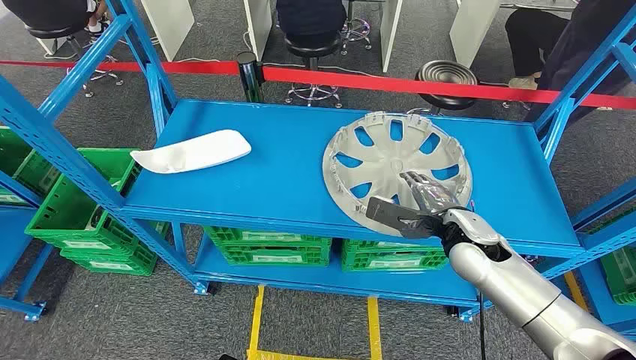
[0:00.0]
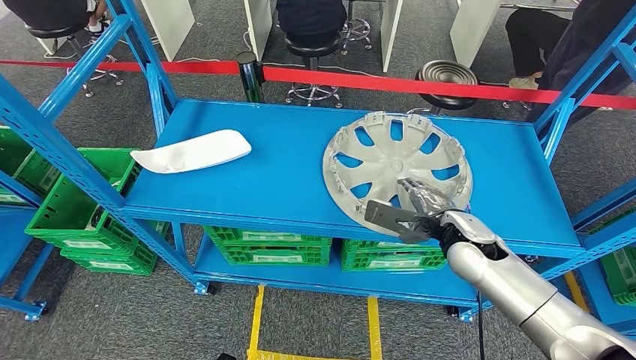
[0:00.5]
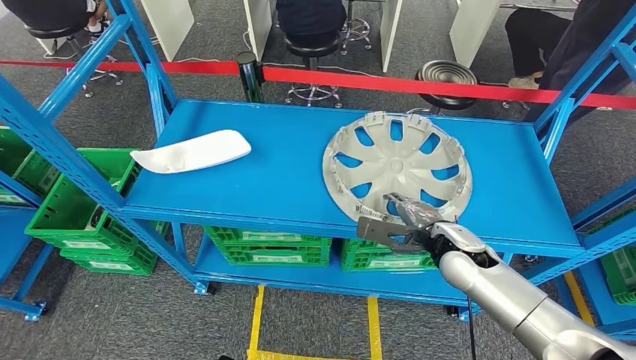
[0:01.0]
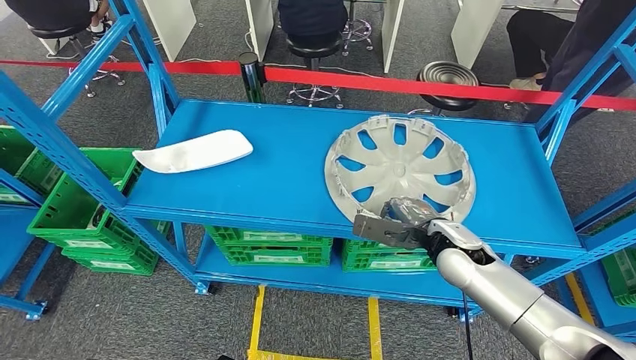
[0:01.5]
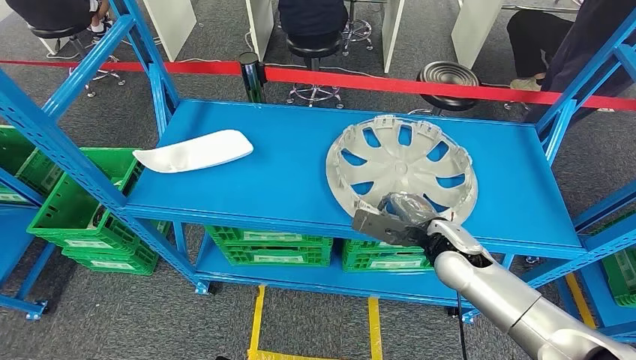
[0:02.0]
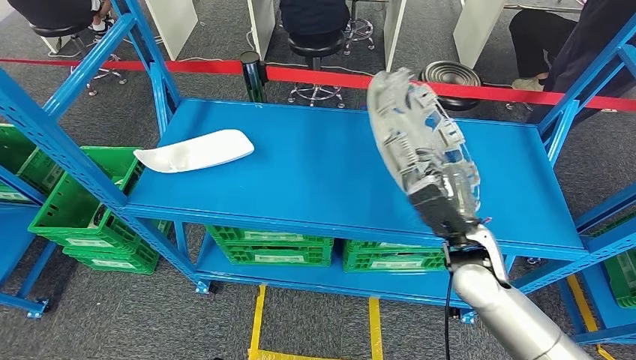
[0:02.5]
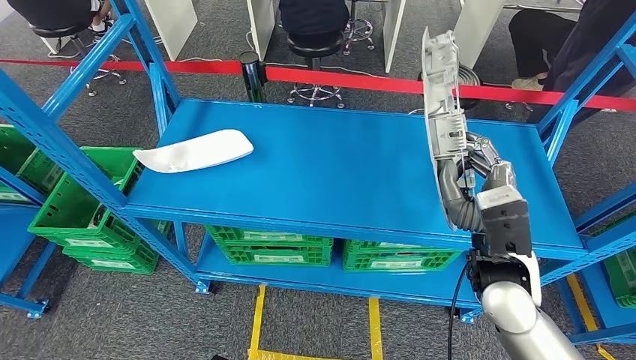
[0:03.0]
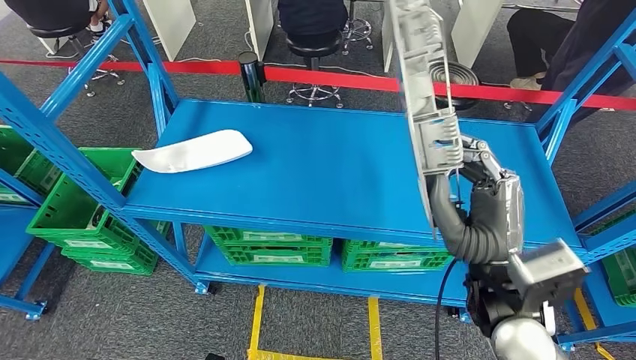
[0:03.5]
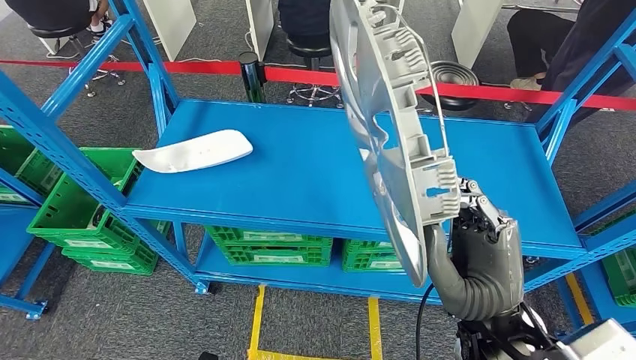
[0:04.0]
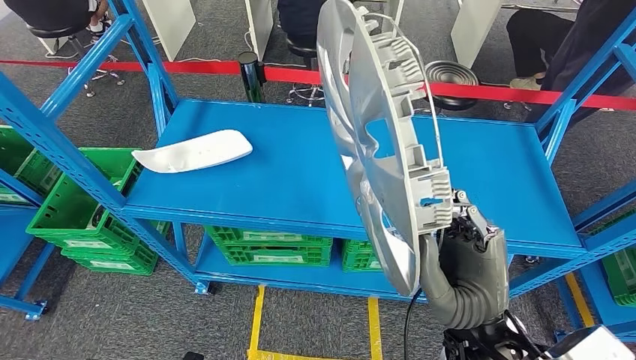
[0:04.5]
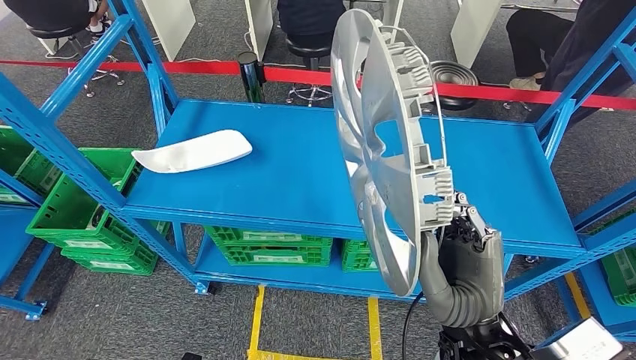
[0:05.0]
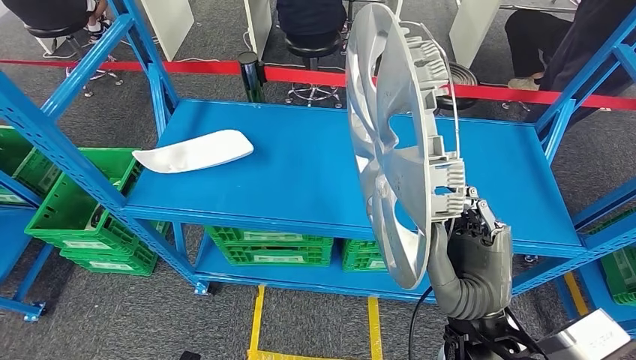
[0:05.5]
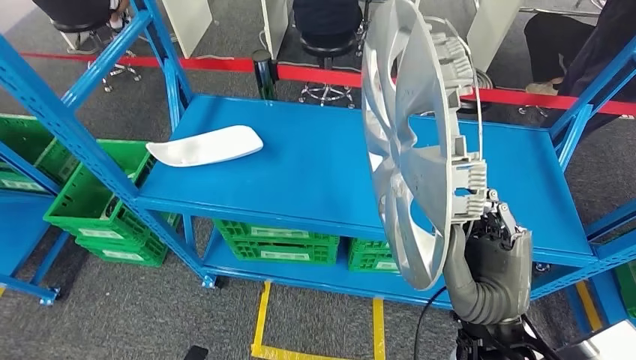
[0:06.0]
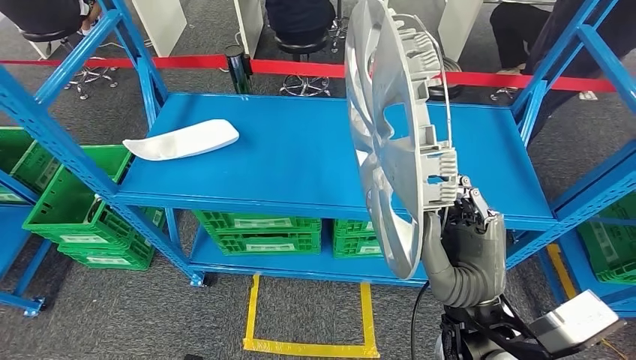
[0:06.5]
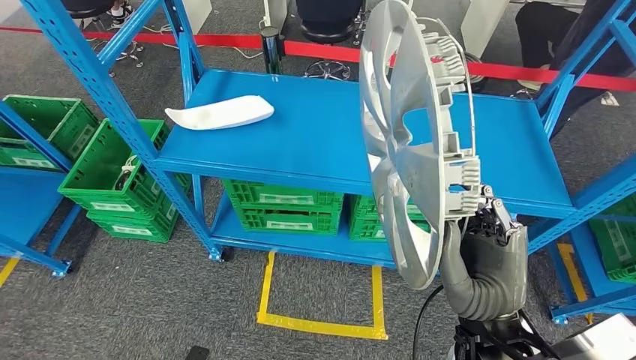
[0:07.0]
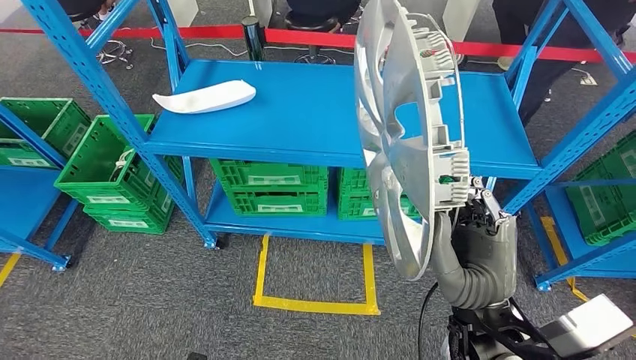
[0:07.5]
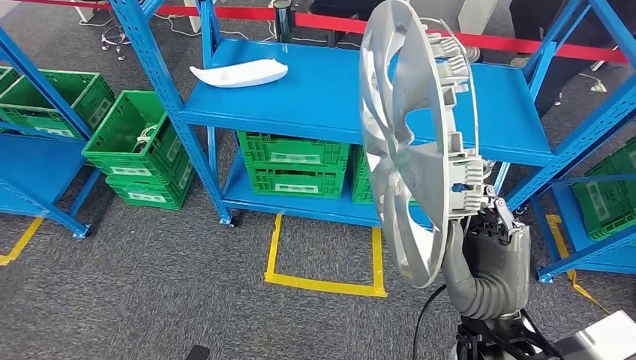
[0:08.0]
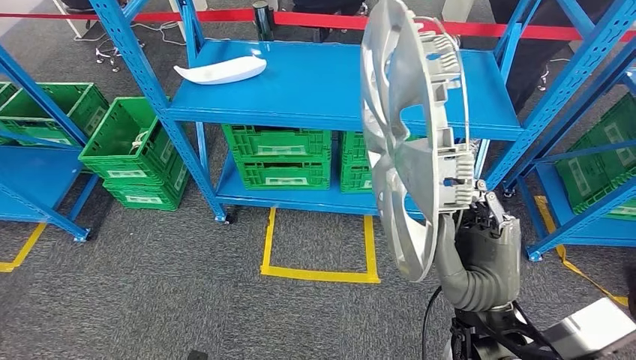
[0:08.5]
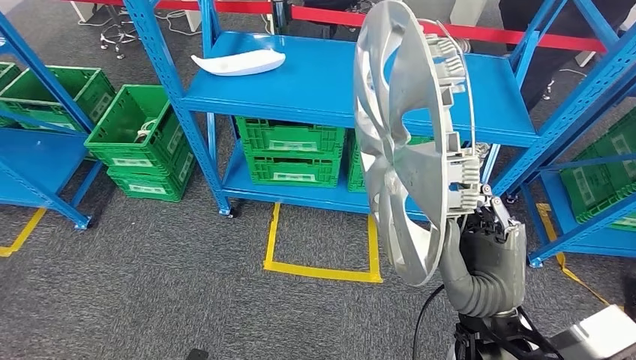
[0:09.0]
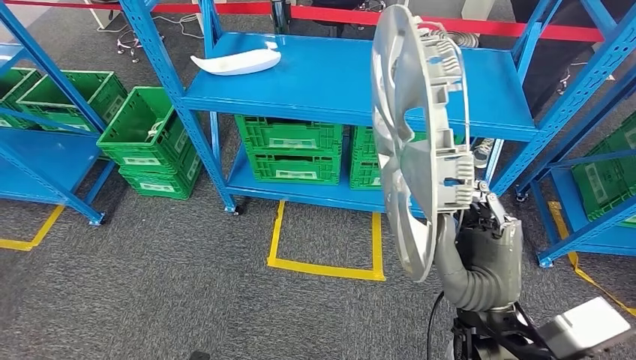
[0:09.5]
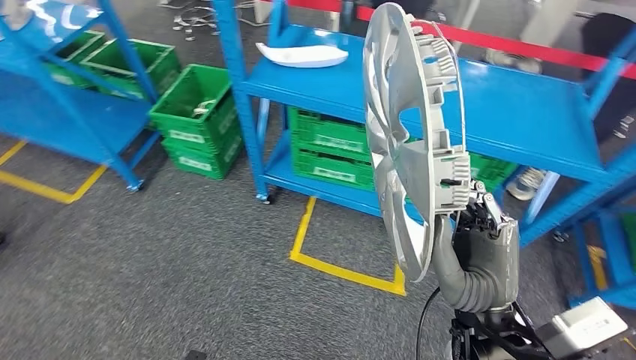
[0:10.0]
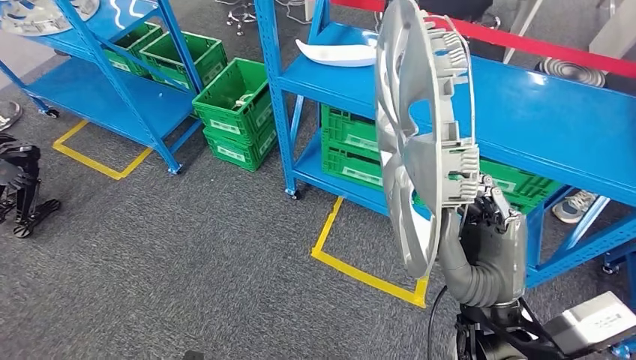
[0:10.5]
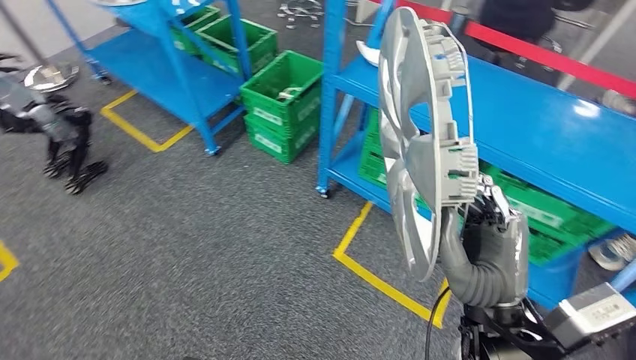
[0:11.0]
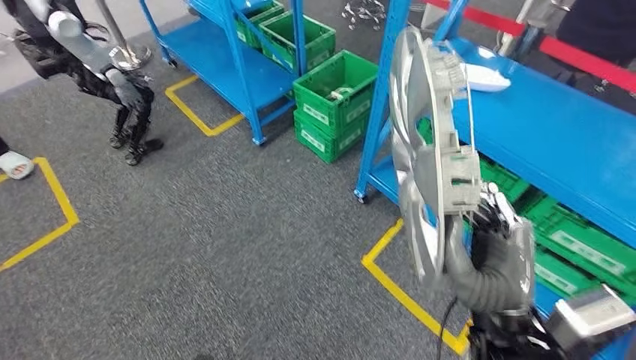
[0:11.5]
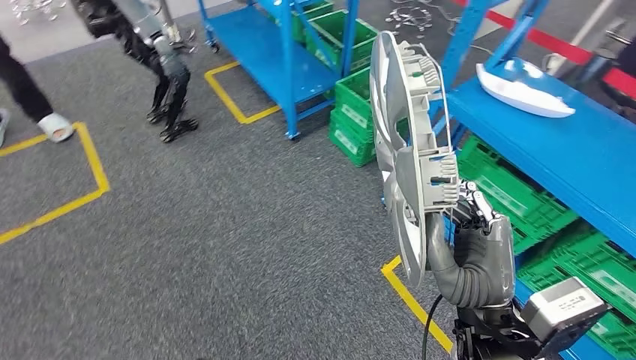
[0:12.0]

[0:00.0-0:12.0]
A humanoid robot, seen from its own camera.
Step, 0:00.0 to 0:05.0: Pick up the small component from the shelf.
0:02.0 to 0:04.0: The right hand shifts some 20 cm backward and upward.

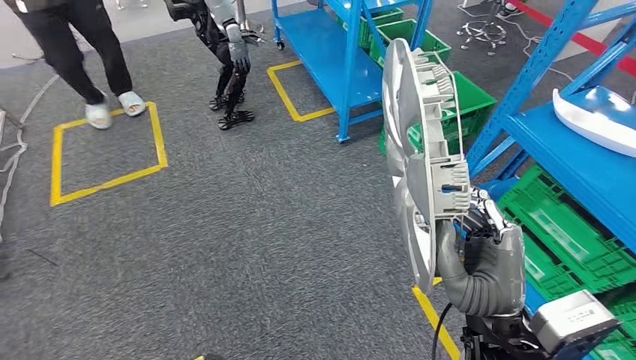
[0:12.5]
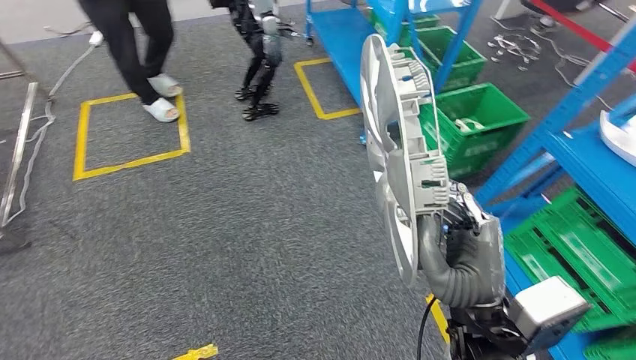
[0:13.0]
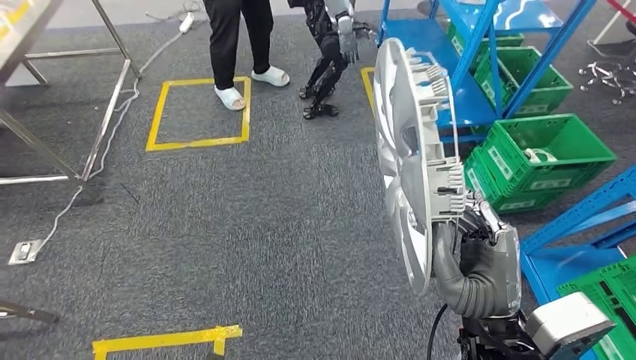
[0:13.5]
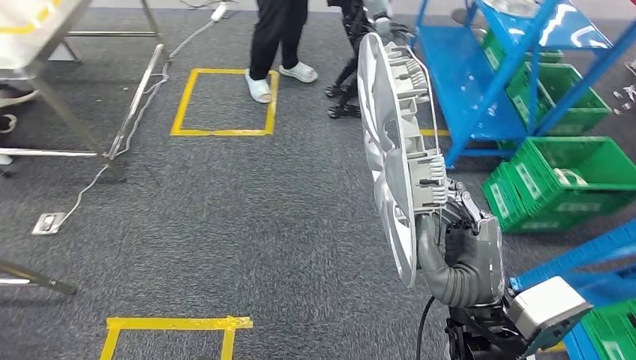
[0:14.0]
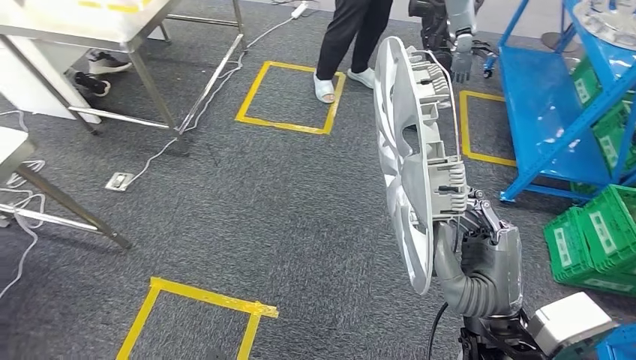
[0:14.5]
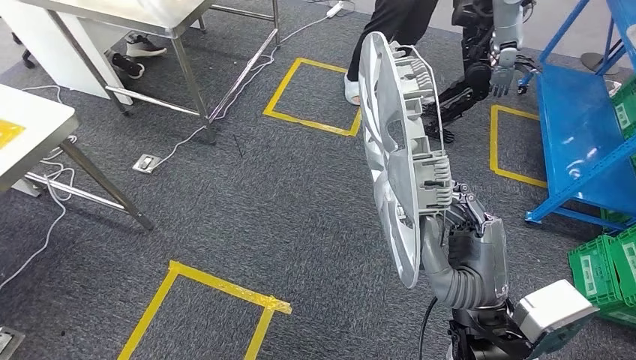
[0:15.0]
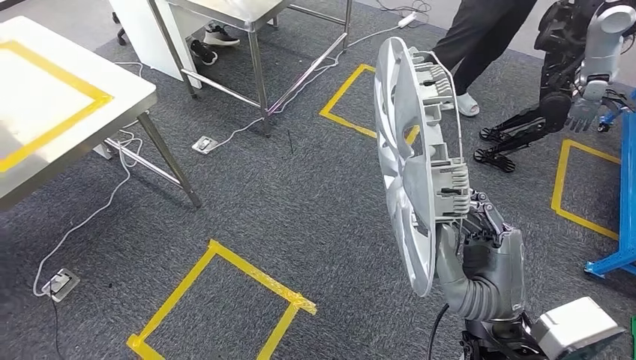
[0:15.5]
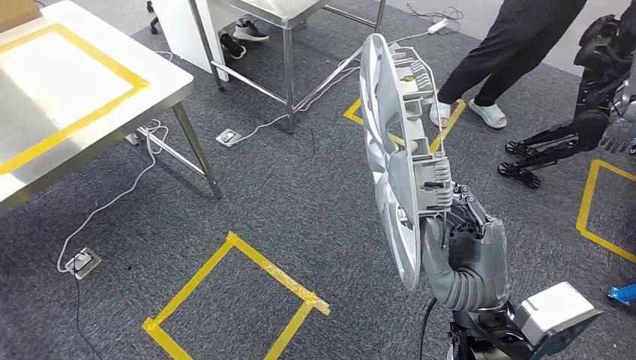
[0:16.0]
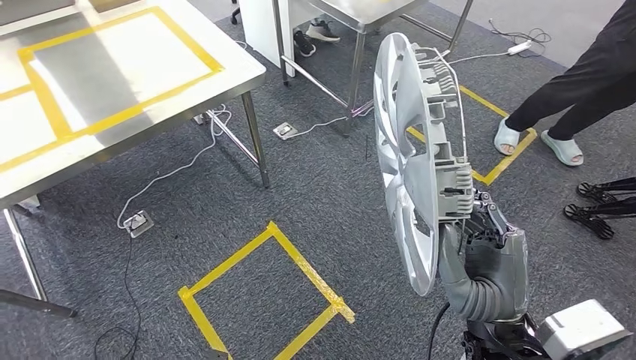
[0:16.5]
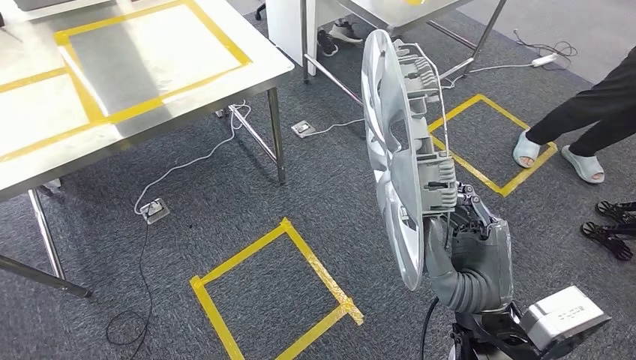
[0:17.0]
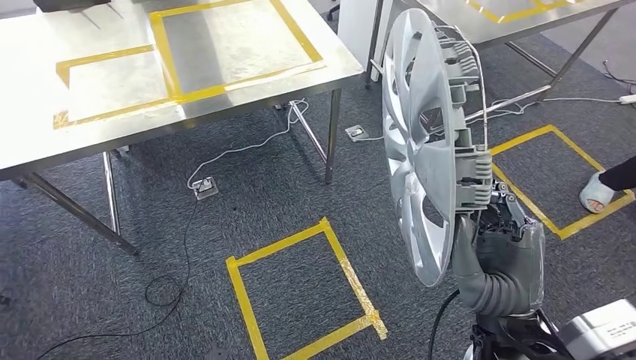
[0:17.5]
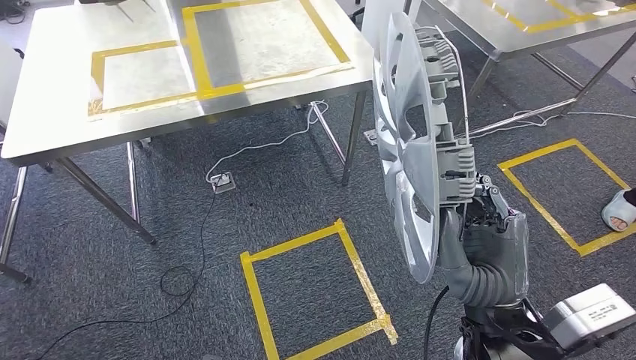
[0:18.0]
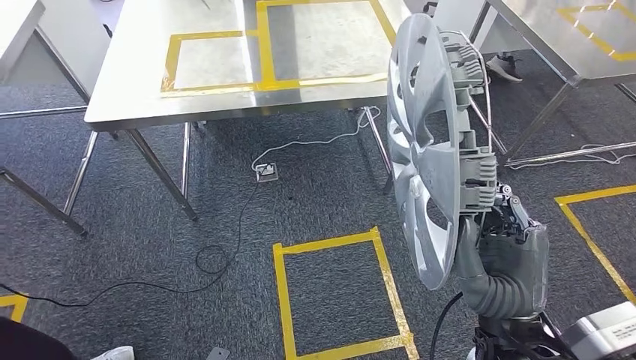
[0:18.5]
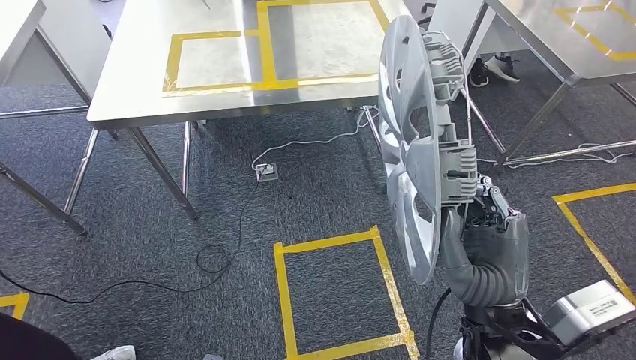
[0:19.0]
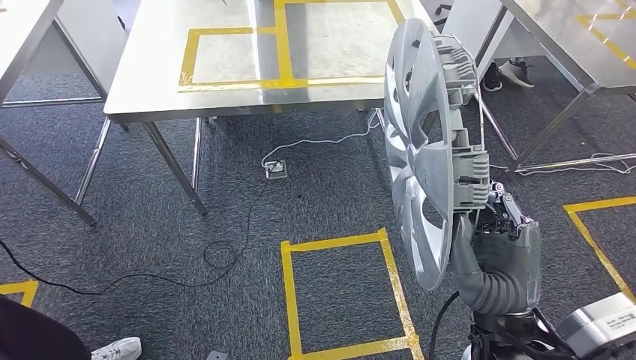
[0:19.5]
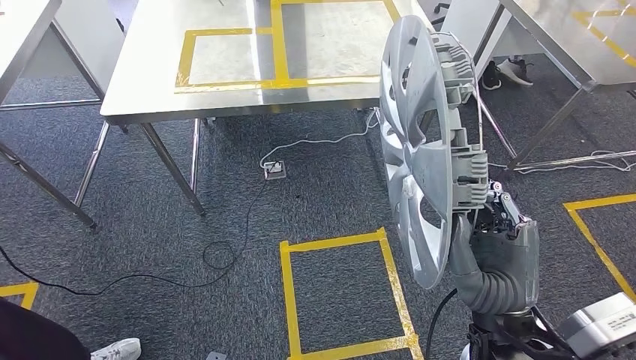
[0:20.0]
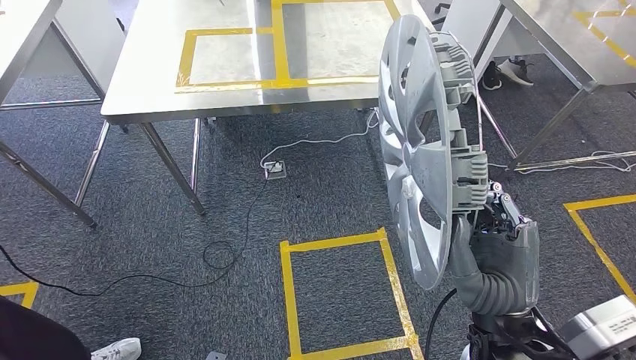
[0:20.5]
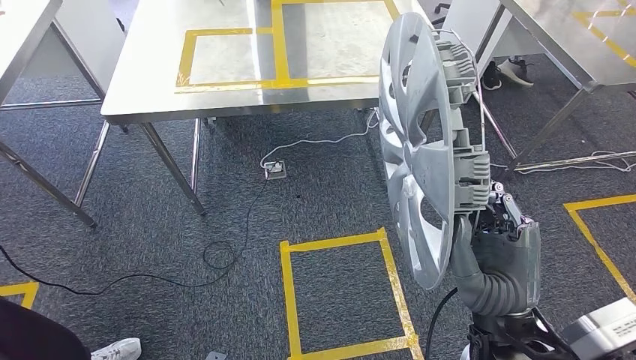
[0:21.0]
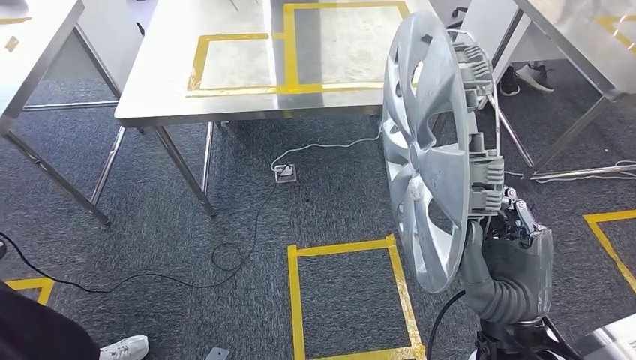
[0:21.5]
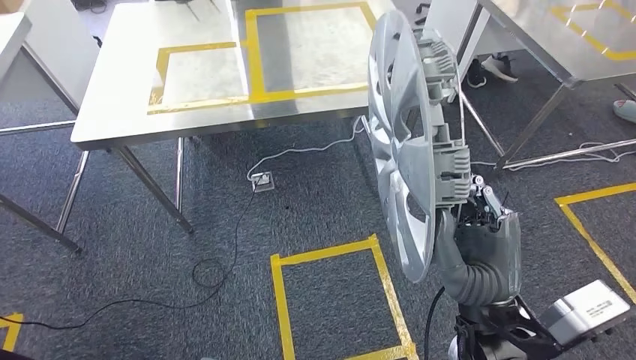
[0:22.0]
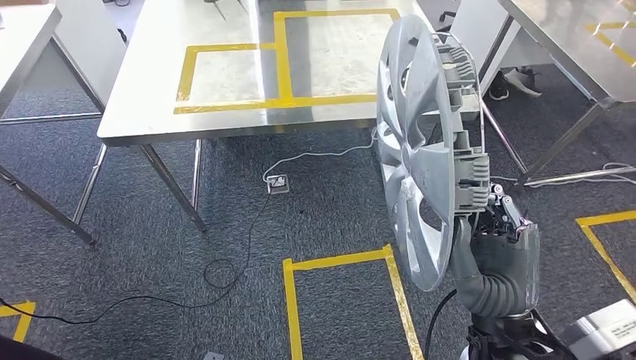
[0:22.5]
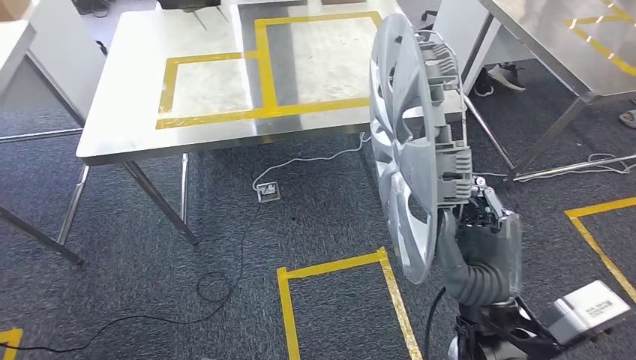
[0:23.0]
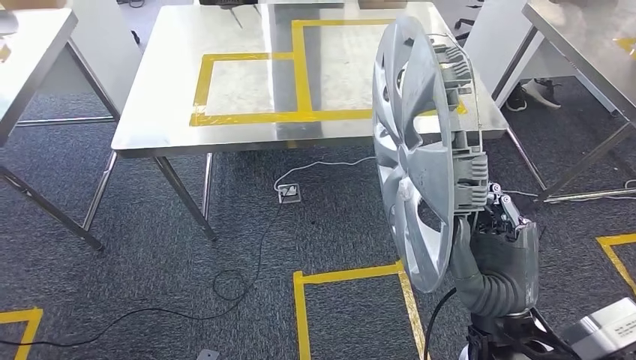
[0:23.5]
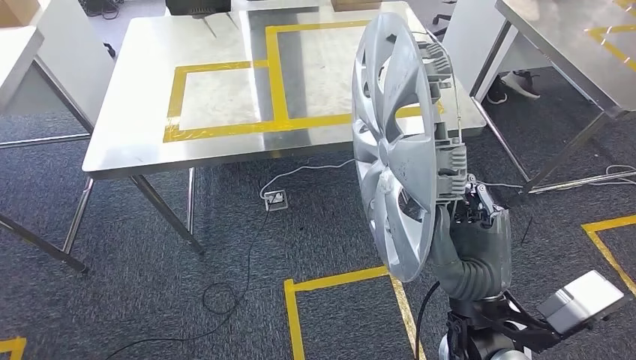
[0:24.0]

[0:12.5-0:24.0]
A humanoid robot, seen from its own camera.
Step, 0:12.5 to 0:23.5: Bring the small component to the front of the workbench.
